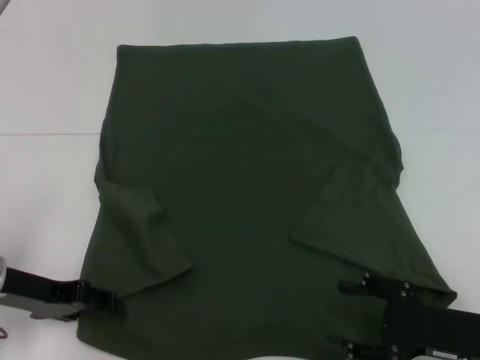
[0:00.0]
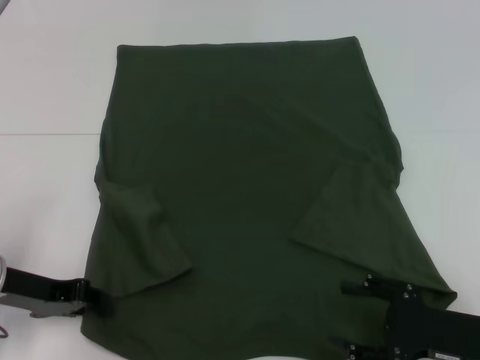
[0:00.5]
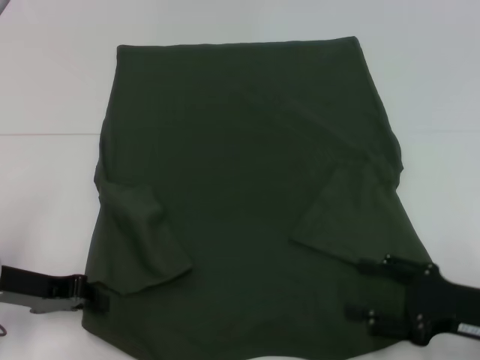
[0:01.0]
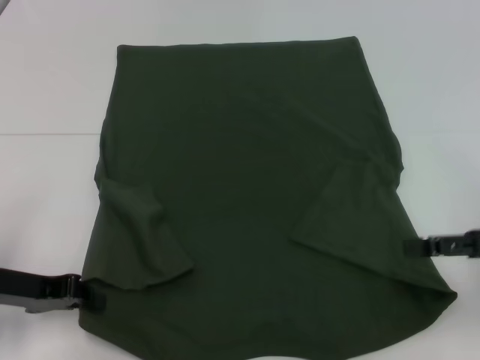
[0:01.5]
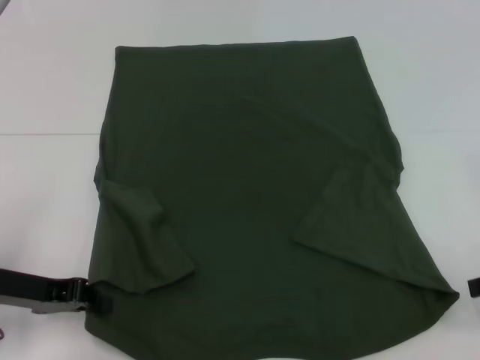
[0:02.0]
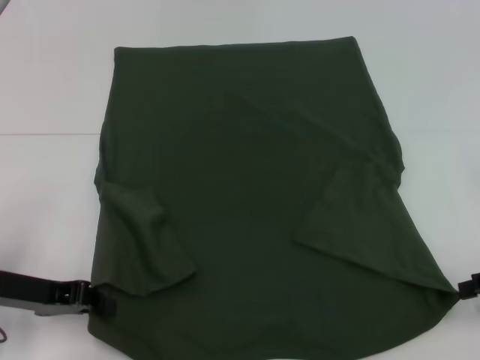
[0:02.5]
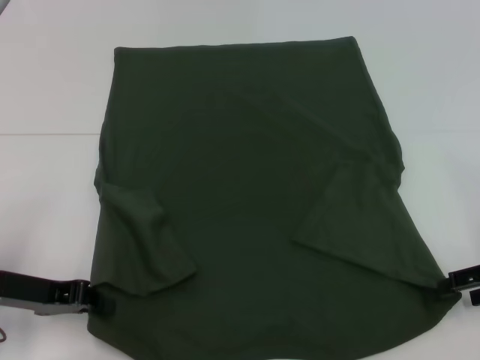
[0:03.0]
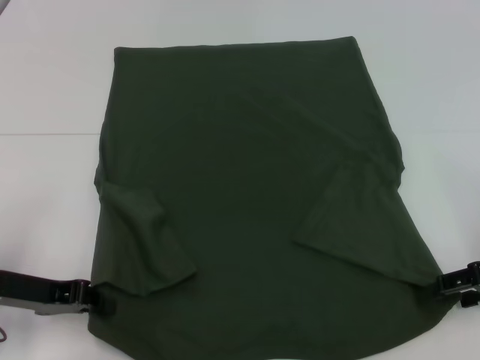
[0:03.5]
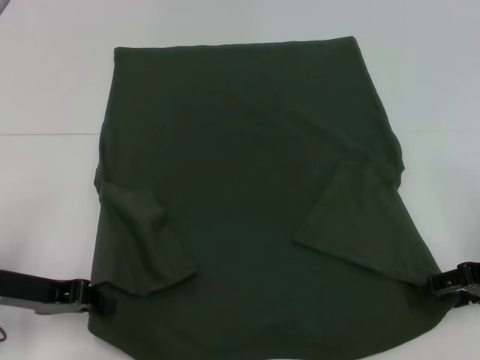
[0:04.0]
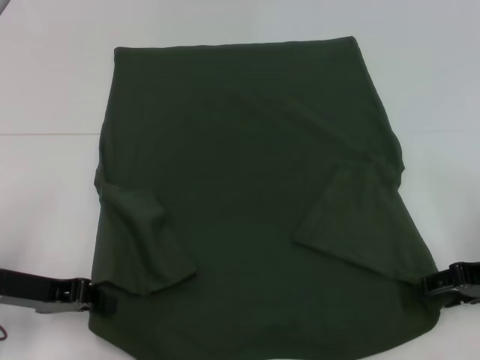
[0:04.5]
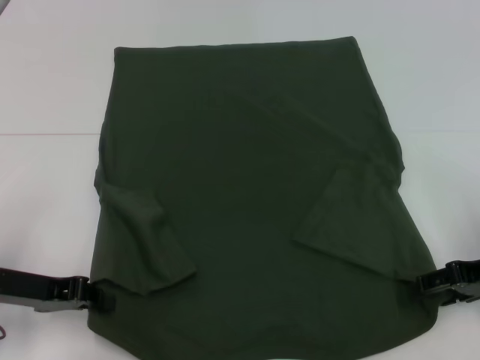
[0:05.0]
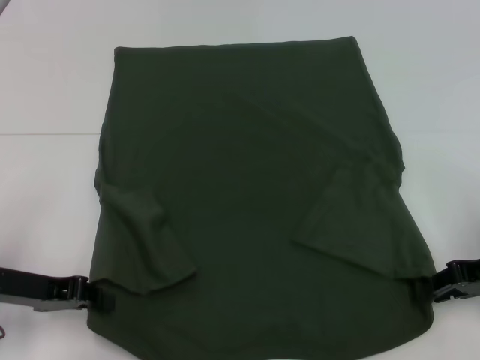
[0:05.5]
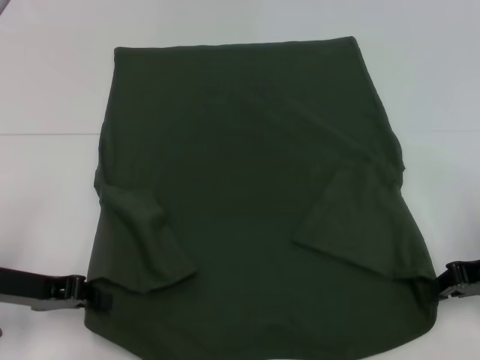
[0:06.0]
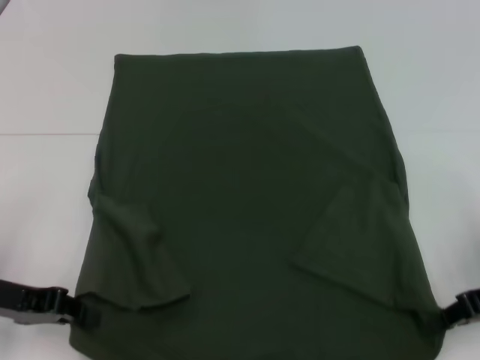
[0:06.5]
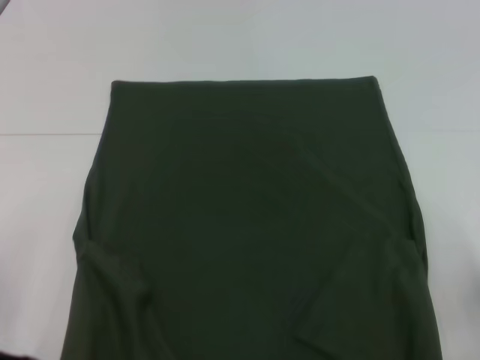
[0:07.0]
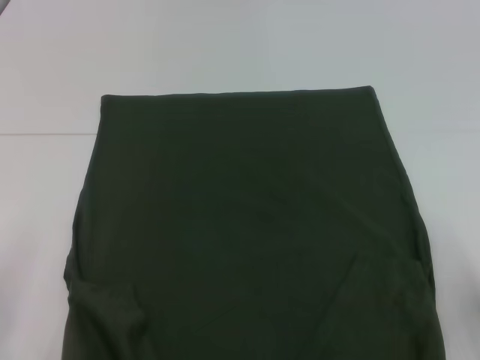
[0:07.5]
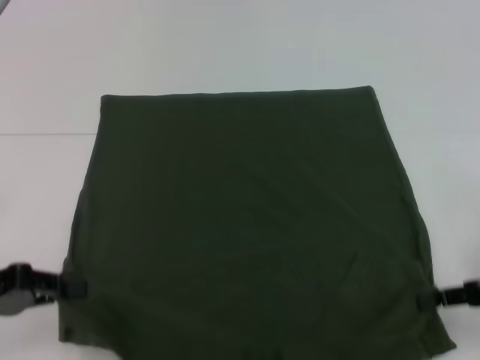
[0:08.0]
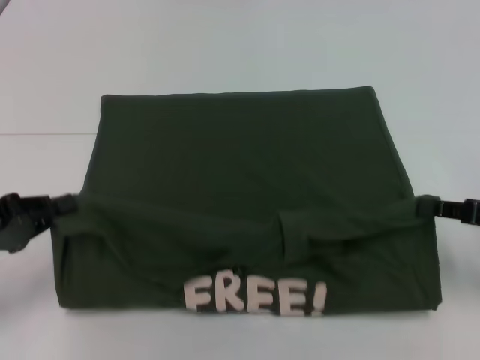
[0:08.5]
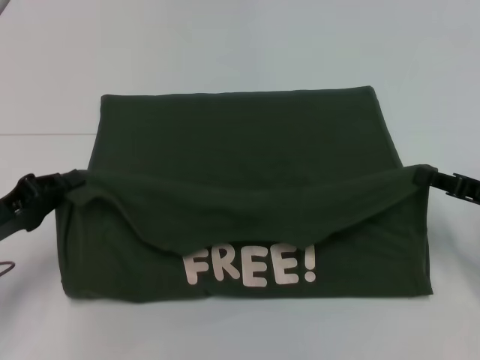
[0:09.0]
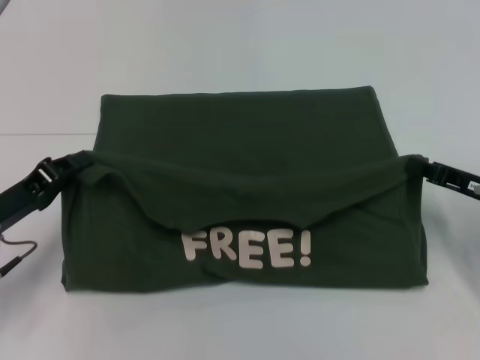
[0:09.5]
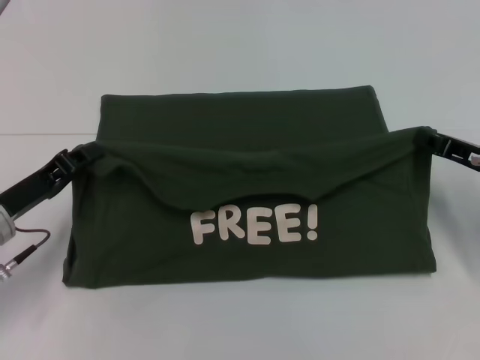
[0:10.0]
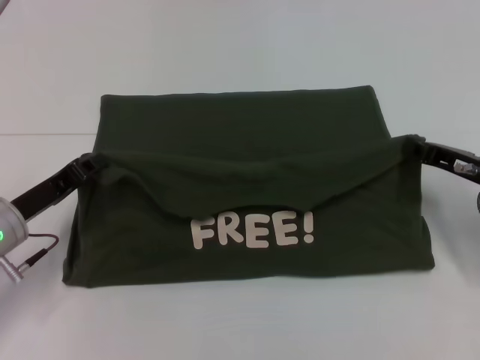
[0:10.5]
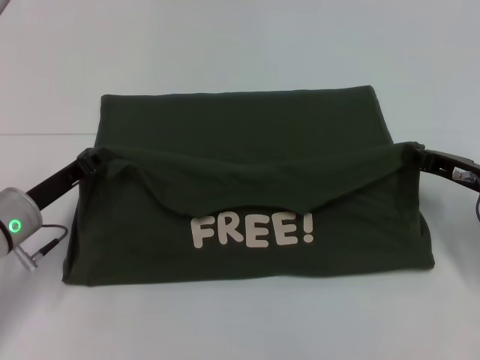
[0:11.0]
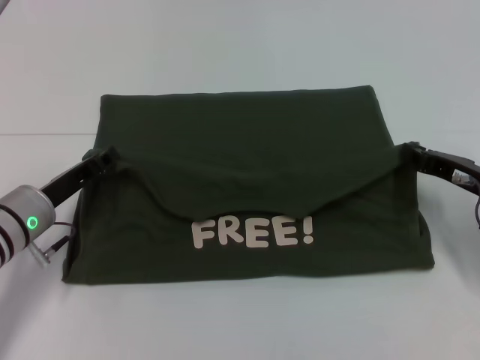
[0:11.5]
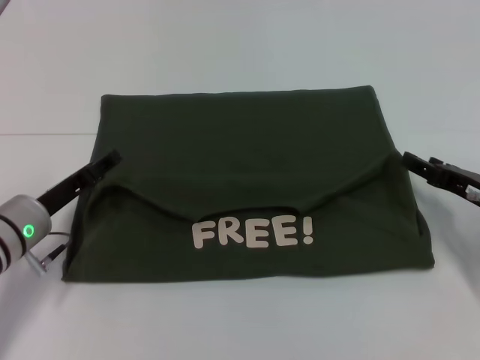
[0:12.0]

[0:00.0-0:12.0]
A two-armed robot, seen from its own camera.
Step, 0:01.5 to 0:06.0: Grab the bottom right corner with your right hand.
0:00.0 to 0:02.0: The left gripper closes. The right gripper moves upward, to the right and forward, approximately 15 cm.
0:02.0 to 0:04.0: The right gripper shifts by some 5 cm.
0:04.0 to 0:06.0: The right gripper closes its fingers.
0:06.0 to 0:08.0: The left gripper changes place by some 5 cm.
0:08.0 to 0:10.0: The left gripper travels forward and to the right by approximately 10 cm; the right gripper travels forward by roughly 10 cm.
0:10.0 to 0:12.0: The right gripper opens. The left gripper opens.

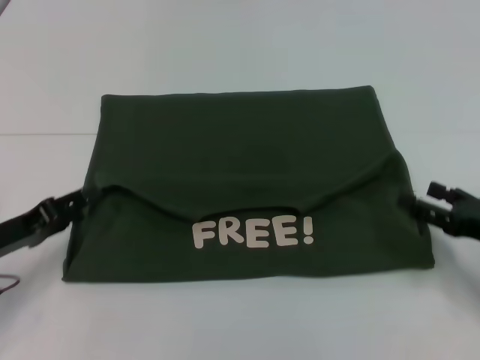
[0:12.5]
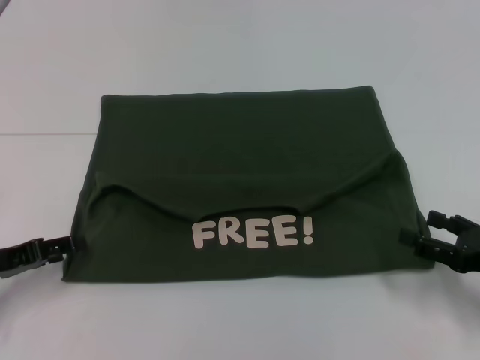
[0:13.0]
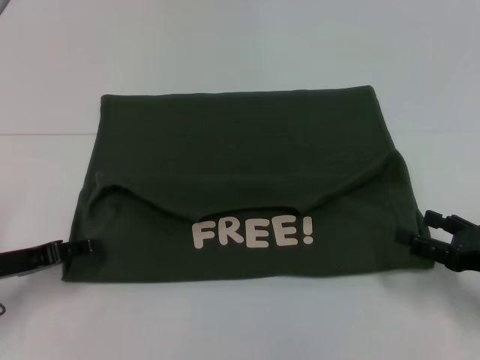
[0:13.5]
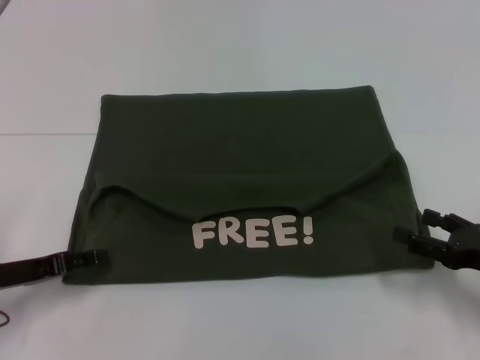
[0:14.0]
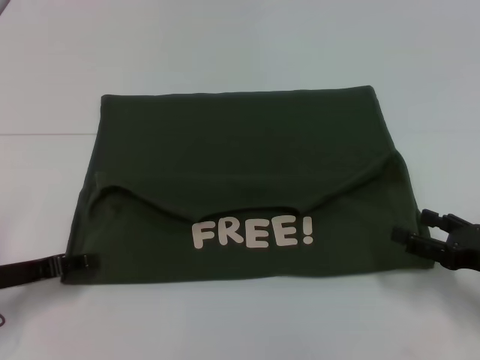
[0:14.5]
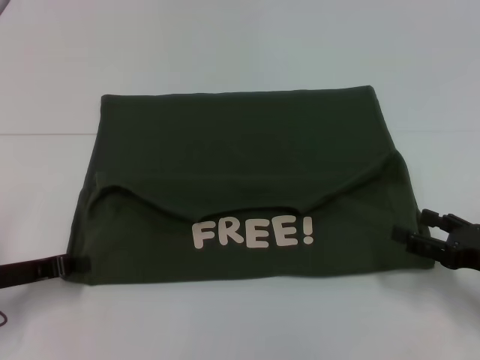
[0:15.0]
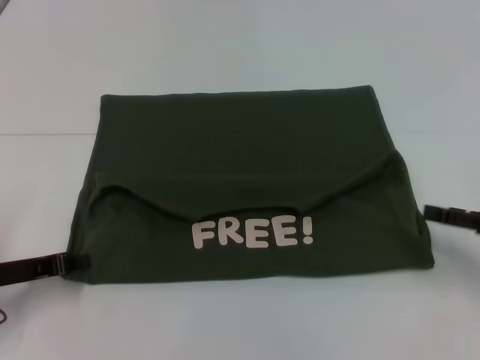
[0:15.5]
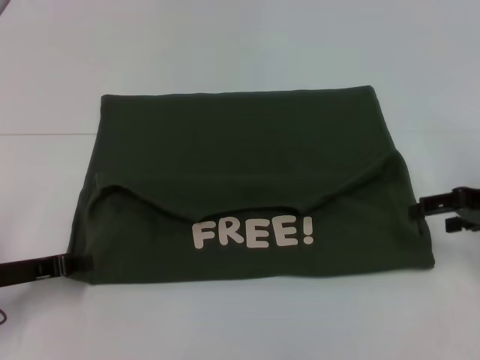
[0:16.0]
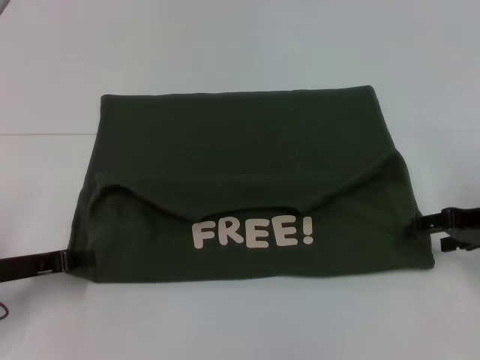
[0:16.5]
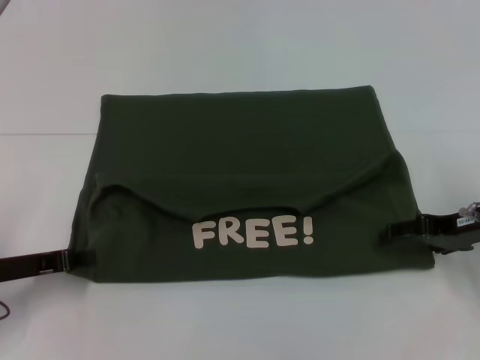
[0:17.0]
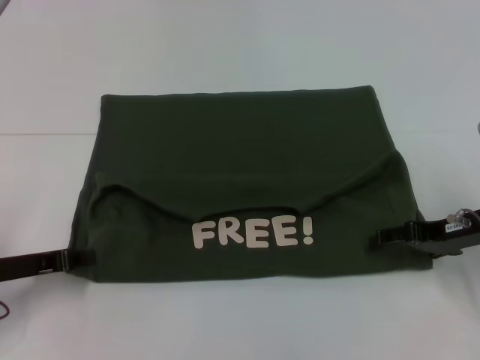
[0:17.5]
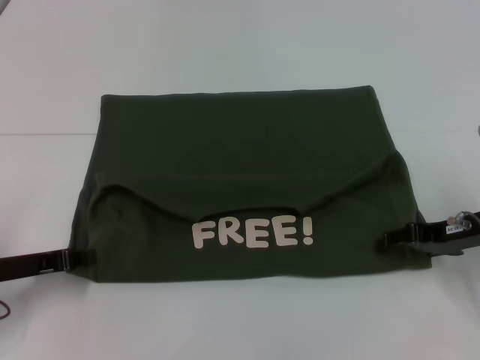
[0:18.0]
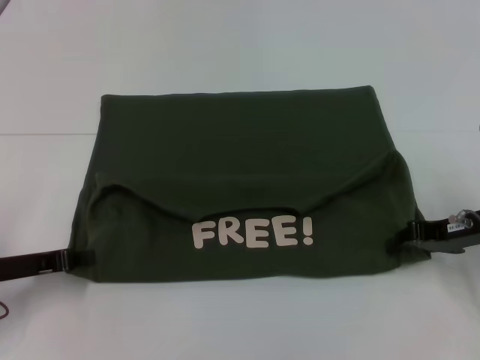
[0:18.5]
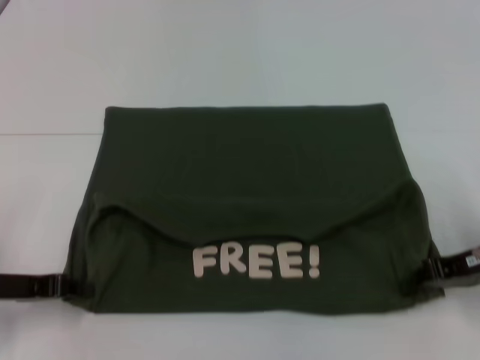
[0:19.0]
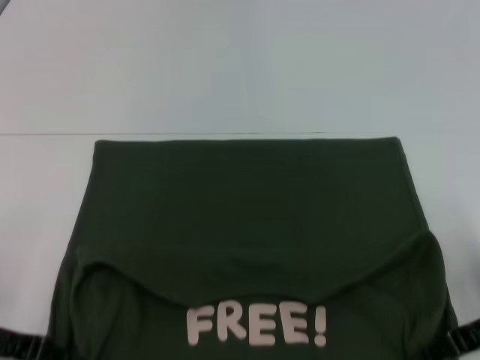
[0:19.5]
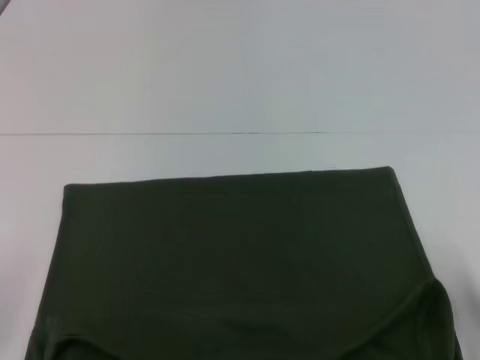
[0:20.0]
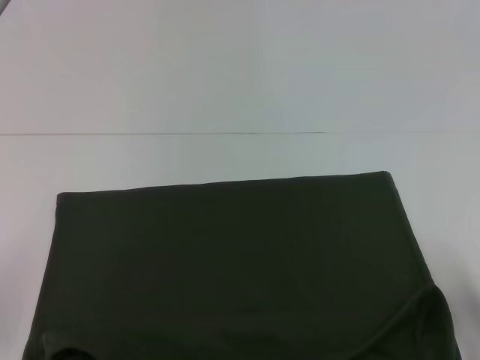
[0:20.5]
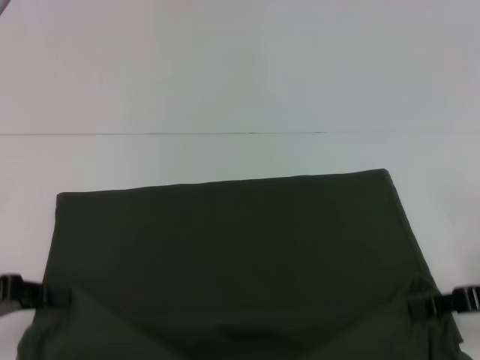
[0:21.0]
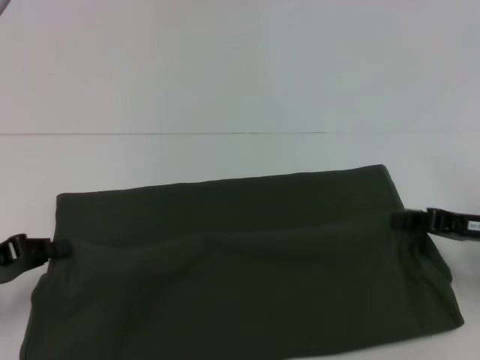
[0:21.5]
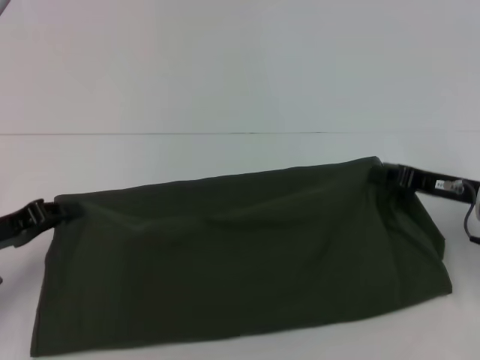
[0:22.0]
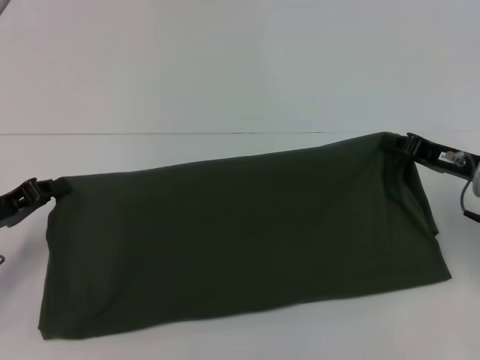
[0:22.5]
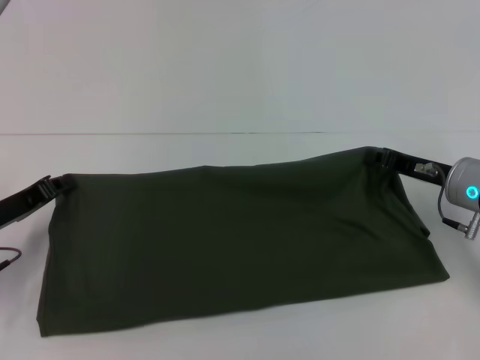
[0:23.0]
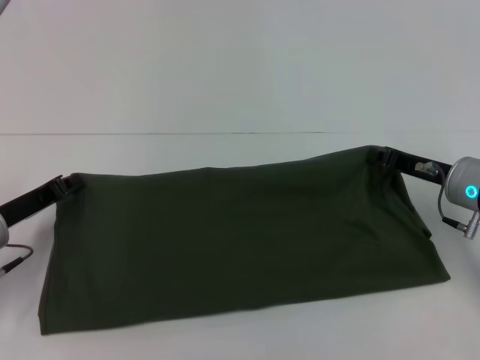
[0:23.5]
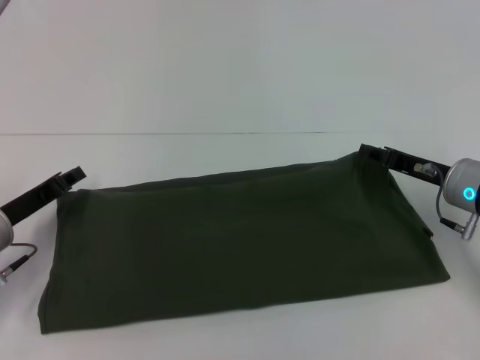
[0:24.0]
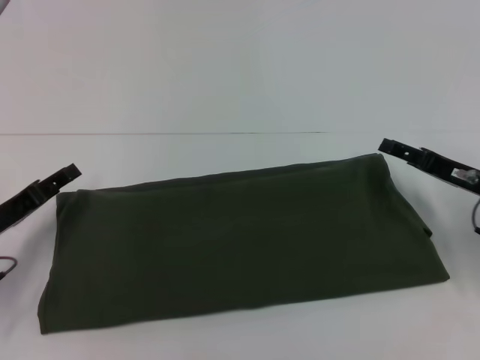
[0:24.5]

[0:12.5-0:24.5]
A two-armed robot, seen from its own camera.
Step, 0:12.5 to 0:20.0: Pull the clothes with your left hand.
Step, 0:12.5 to 0:20.0: Pull the clothes with your right hand.
Step, 0:20.5 to 0:24.0: Fold the clothes with your right hand.
0:14.5 to 0:16.5: The left gripper closes. Meanwhile the right gripper heads forward and upward, covering about 10 cm.
0:16.5 to 0:18.5: The right gripper closes up.
0:18.5 to 0:20.5: The left gripper moves backward, about 5 cm. Meanwhile the right gripper moves backward, some 10 cm, and closes.
0:20.5 to 0:22.5: The right gripper travels forward by roughly 10 cm; the left gripper is displaced forward by about 10 cm.
0:22.5 to 0:24.5: The right gripper opens its fingers, while the left gripper opens.

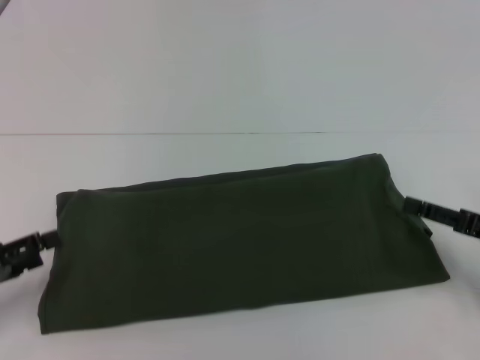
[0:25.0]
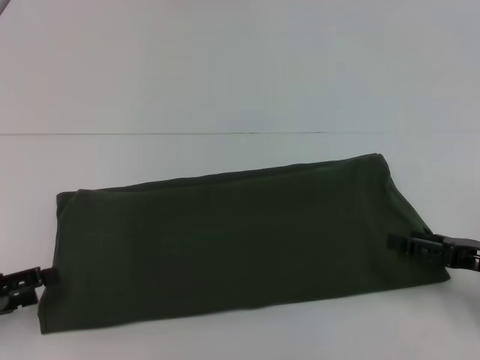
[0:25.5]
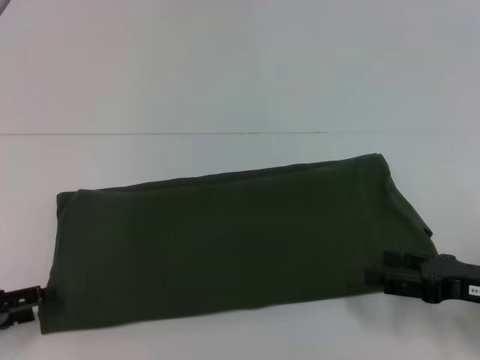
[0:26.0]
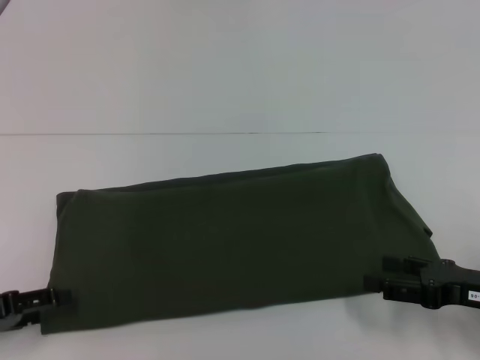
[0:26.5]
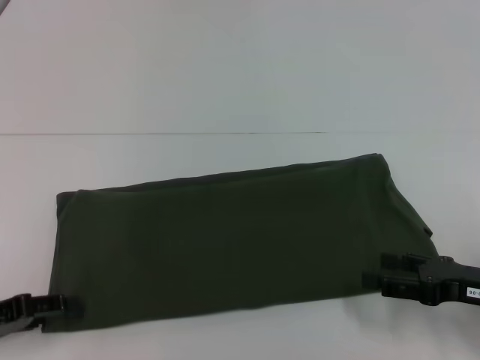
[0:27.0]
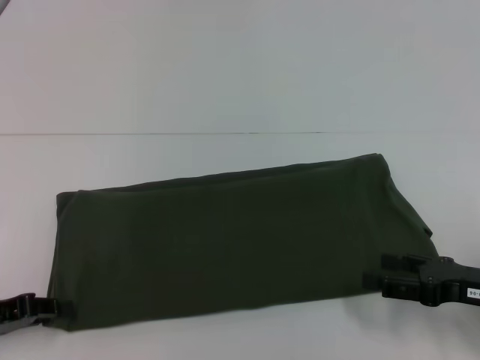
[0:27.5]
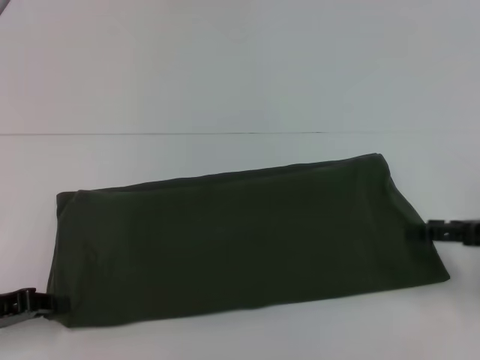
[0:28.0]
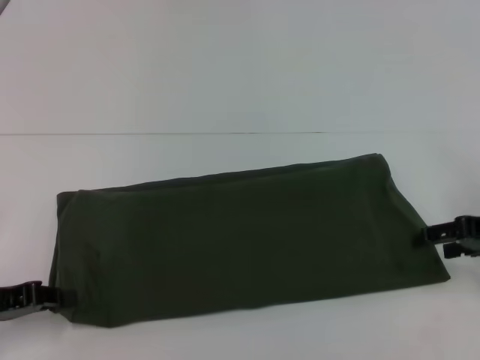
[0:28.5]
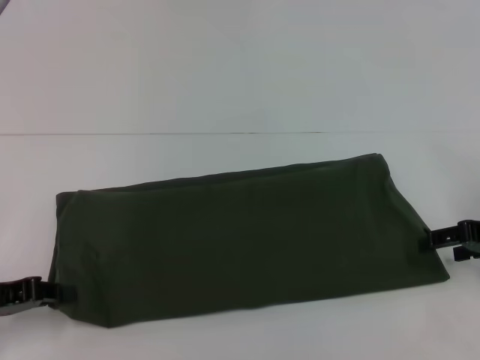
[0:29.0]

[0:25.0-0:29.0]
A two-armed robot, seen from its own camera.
0:27.0 to 0:29.0: The left gripper closes up. Meanwhile the right gripper shifts about 10 cm forward and upward.
